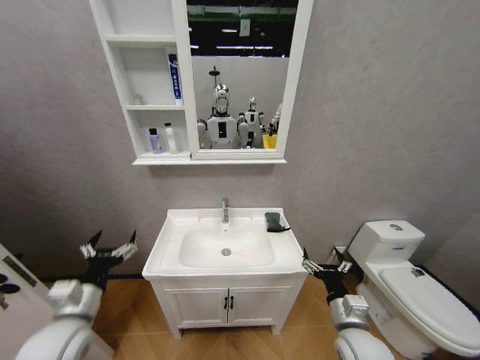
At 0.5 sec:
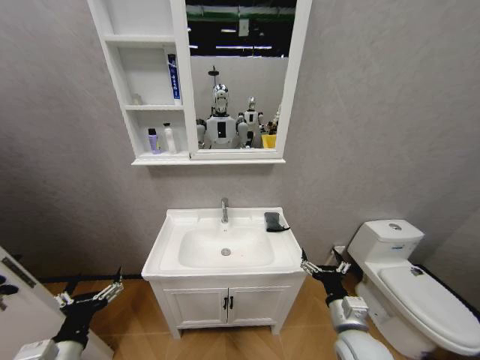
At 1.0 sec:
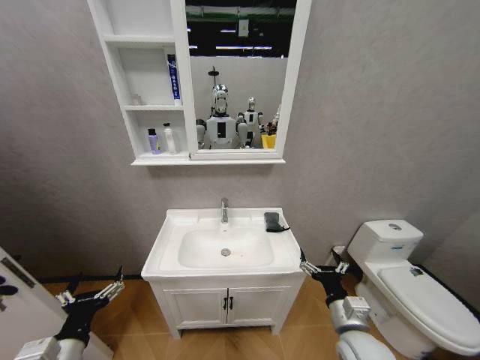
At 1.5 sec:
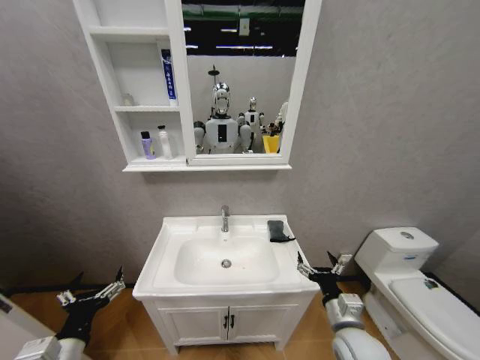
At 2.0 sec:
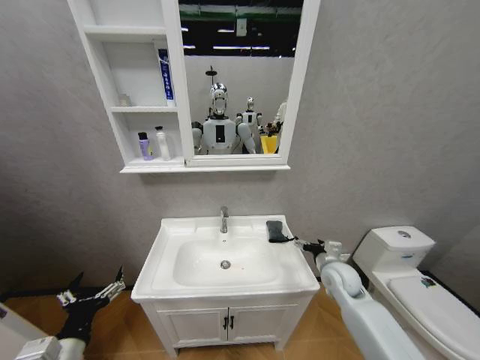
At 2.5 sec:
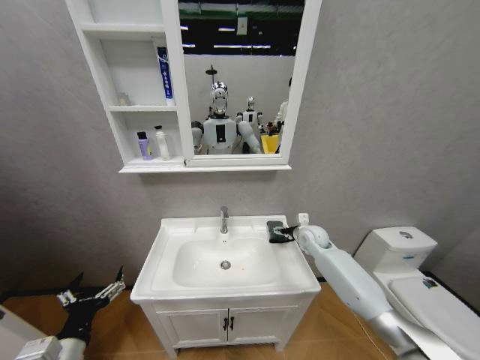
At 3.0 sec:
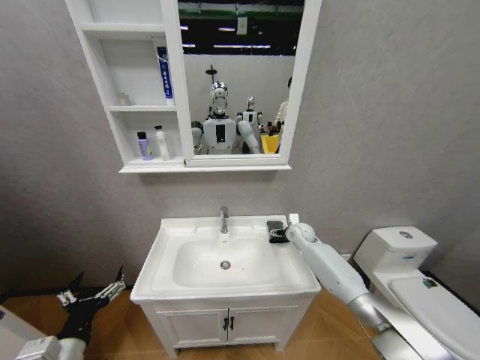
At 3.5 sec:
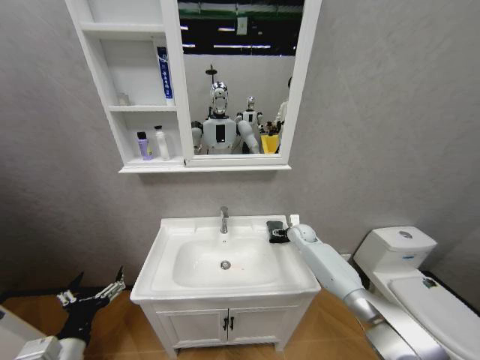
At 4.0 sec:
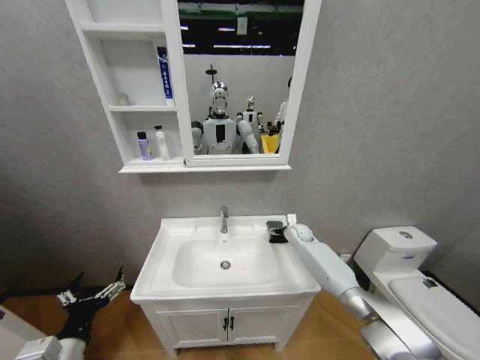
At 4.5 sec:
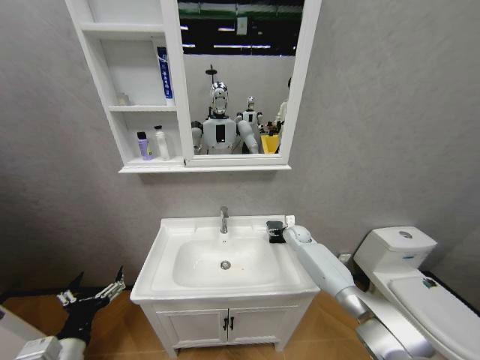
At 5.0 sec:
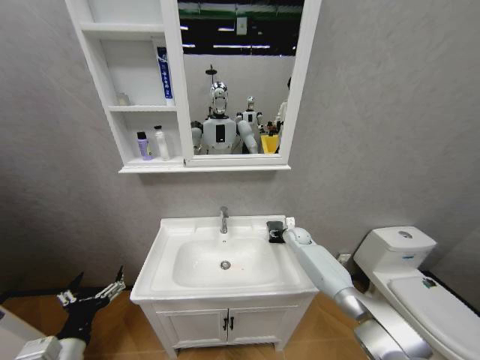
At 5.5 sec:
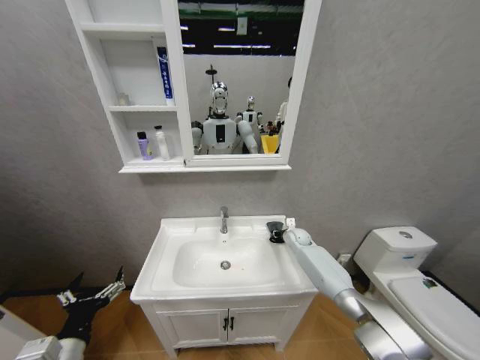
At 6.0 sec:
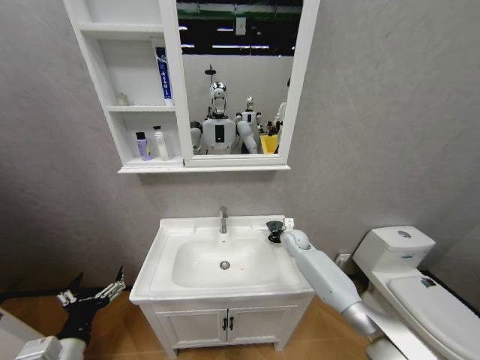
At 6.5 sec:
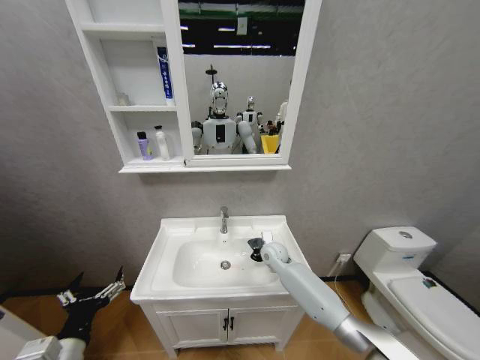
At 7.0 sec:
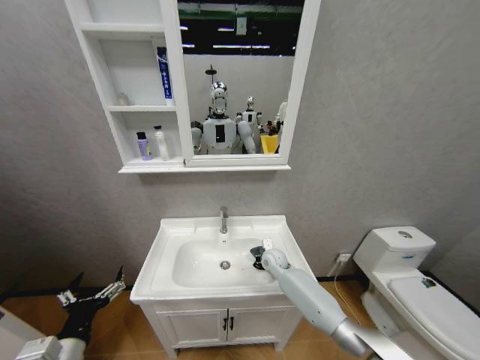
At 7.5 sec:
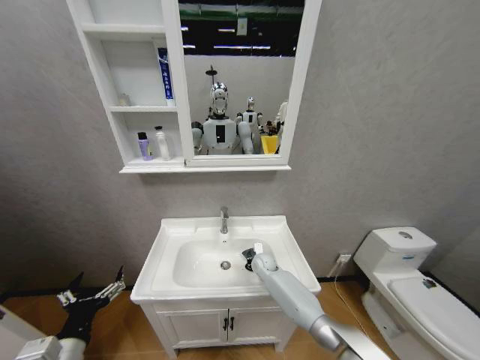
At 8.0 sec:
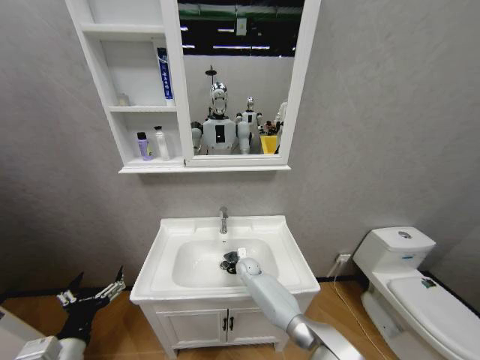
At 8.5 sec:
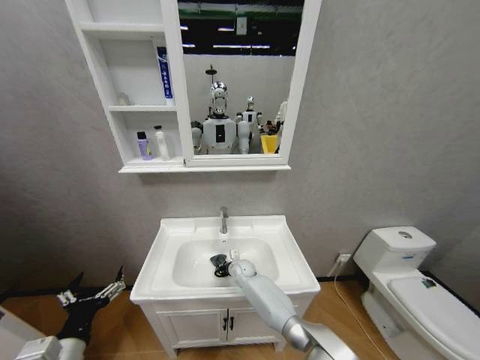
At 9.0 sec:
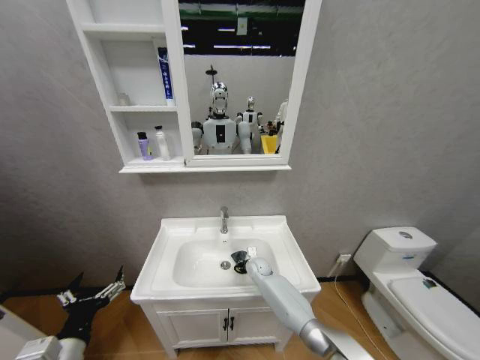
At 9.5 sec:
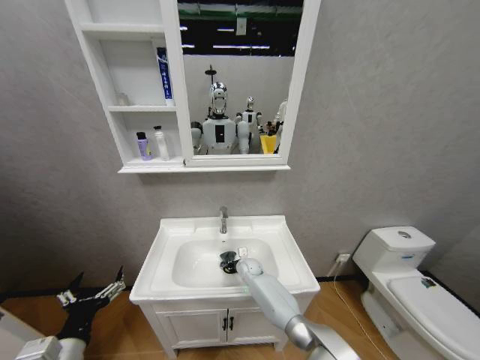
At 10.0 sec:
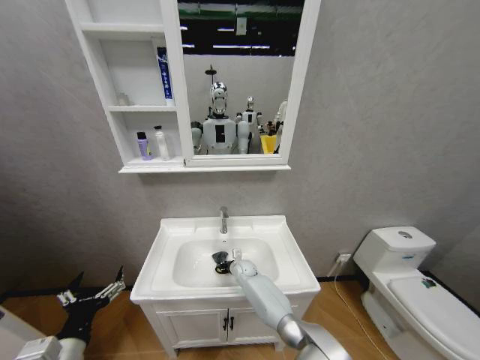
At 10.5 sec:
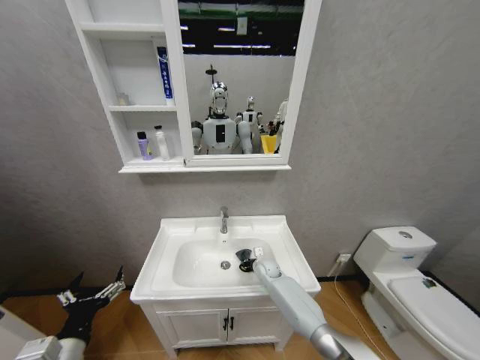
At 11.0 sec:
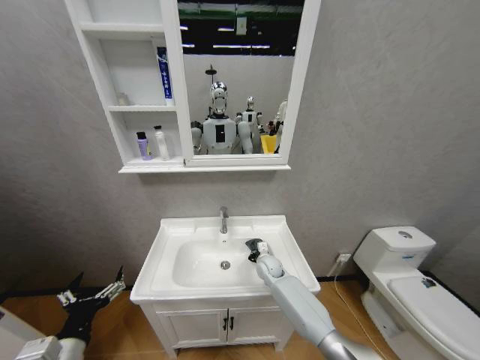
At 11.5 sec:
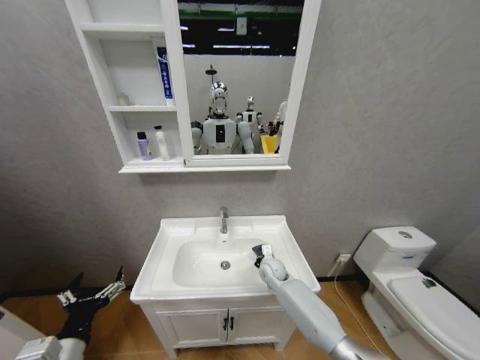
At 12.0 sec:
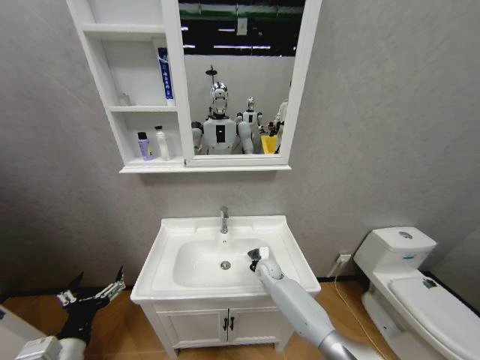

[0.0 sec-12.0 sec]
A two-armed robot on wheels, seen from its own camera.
Task of the whole recording: Move facial cleanser and shampoo from washbasin to cabinet, then wipe washbasin with towel.
0.0 sec to 2.0 sec: The left gripper shifts some 10 cm backward, while the right gripper goes about 15 cm forward.
2.0 sec to 4.0 sec: The right gripper heads forward, covering some 20 cm.
4.0 sec to 6.0 sec: The right gripper closes its fingers.
6.0 sec to 8.0 sec: The right gripper travels to the left and downward by roughly 25 cm.
8.0 sec to 10.0 sec: There are only small adjustments of the grippers.
10.0 sec to 12.0 sec: The right gripper goes approximately 10 cm to the right and upward.

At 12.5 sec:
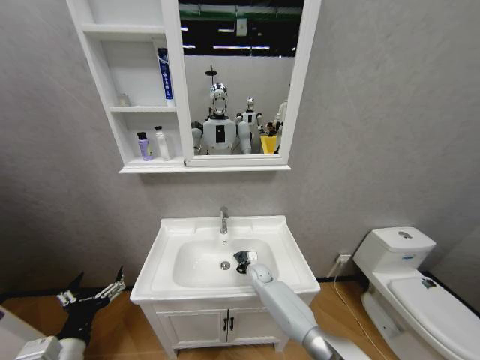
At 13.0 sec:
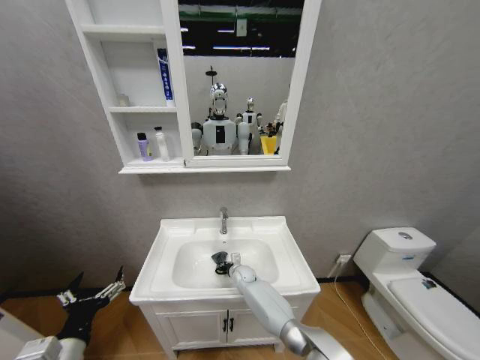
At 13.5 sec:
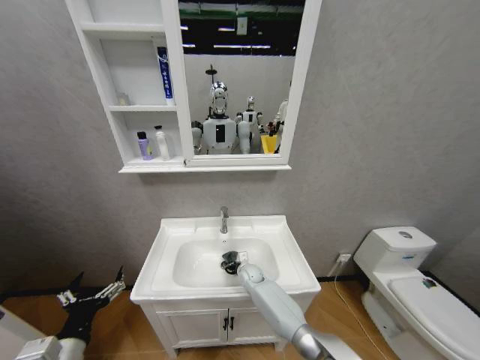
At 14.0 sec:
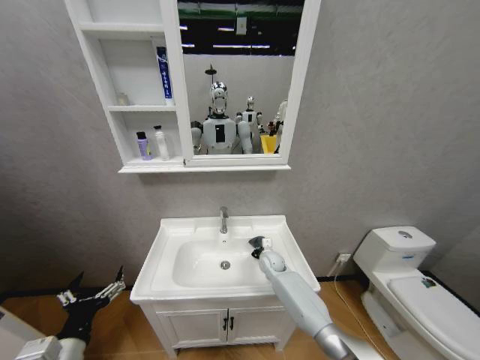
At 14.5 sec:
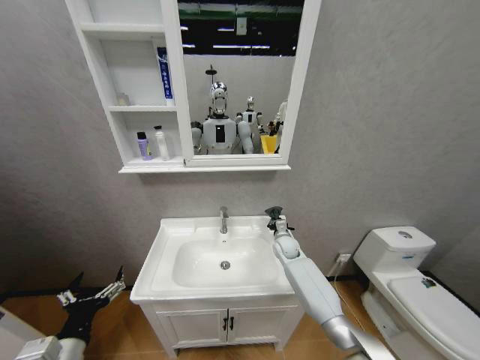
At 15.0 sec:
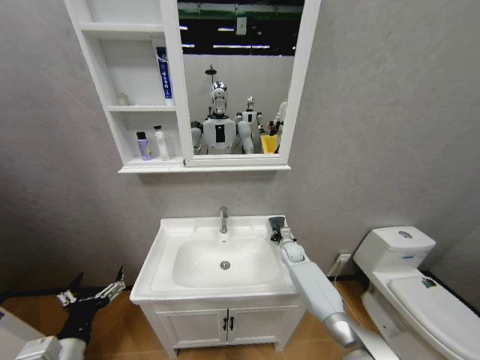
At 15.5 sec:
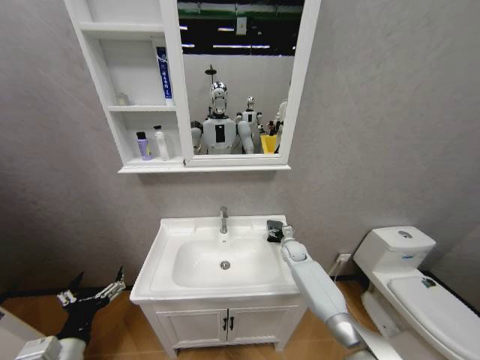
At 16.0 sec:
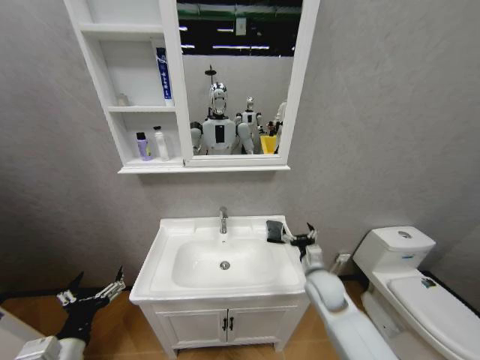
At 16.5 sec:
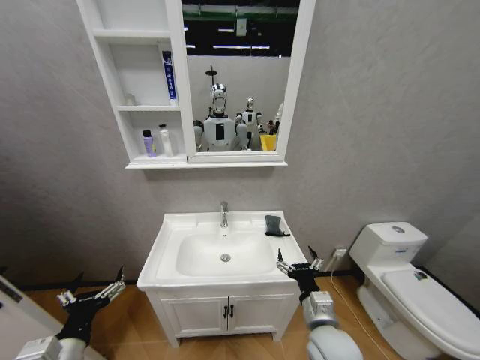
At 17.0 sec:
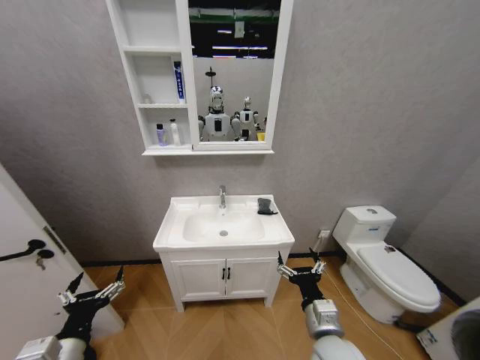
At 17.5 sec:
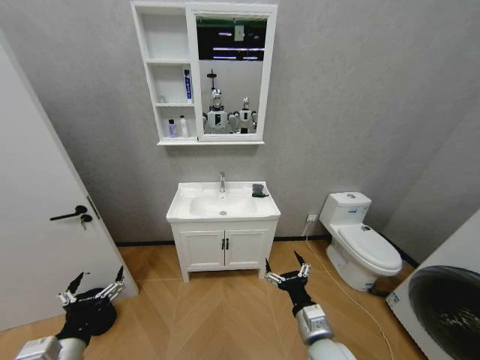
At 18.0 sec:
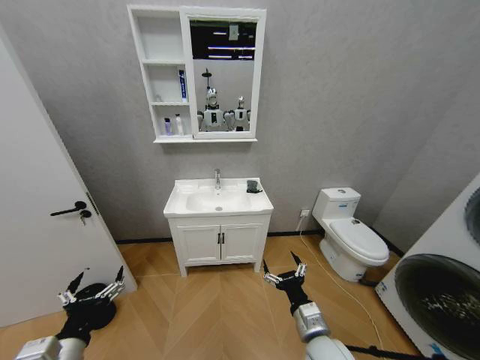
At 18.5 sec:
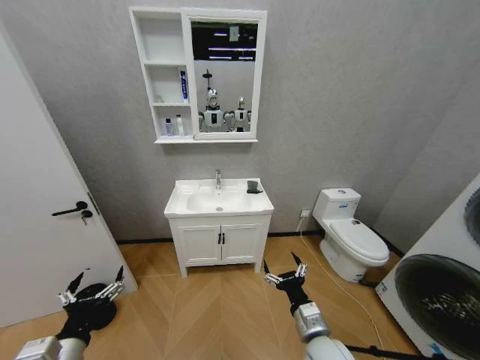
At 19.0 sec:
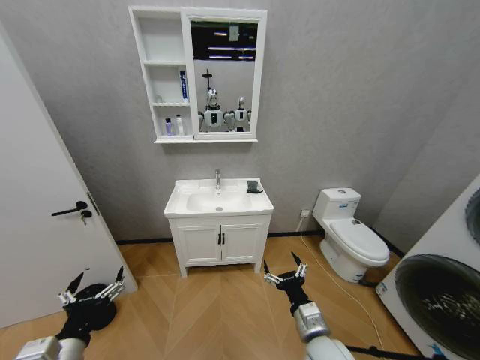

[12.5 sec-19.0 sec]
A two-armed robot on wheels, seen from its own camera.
Task of the whole recording: Move facial cleanser and shampoo from washbasin to cabinet, then wipe washbasin with towel.
12.5 sec to 14.5 sec: The right gripper moves upward and to the right, roughly 15 cm.
14.5 sec to 17.0 sec: The right gripper heads backward, covering about 35 cm, and opens its fingers.

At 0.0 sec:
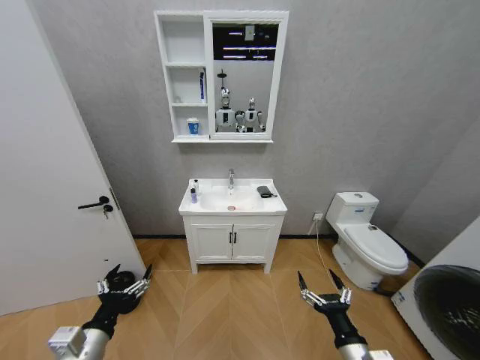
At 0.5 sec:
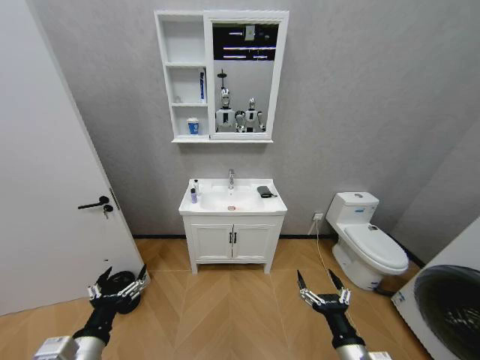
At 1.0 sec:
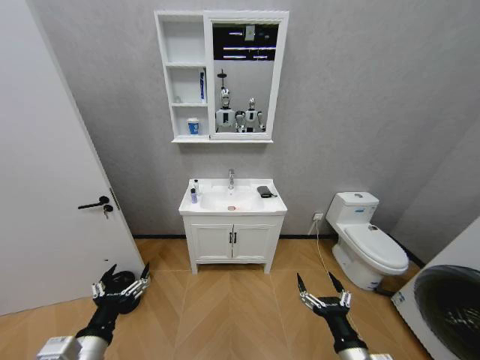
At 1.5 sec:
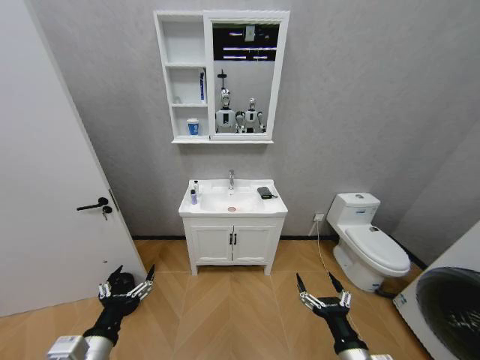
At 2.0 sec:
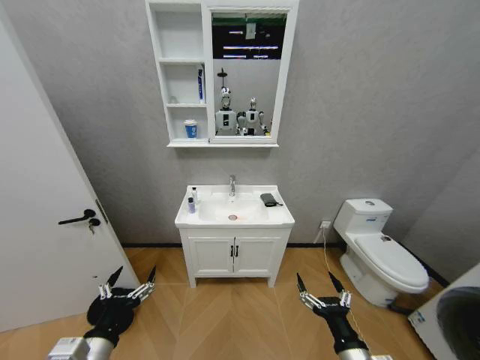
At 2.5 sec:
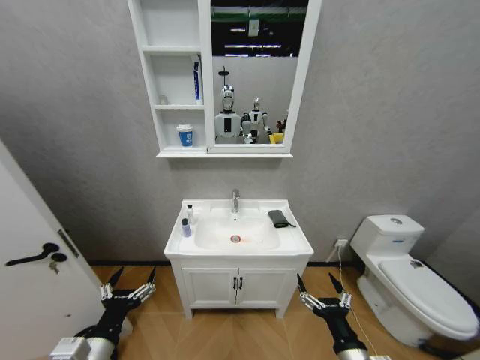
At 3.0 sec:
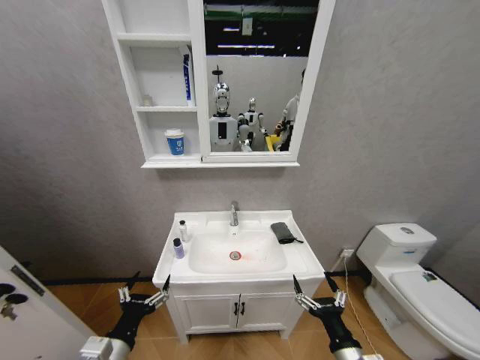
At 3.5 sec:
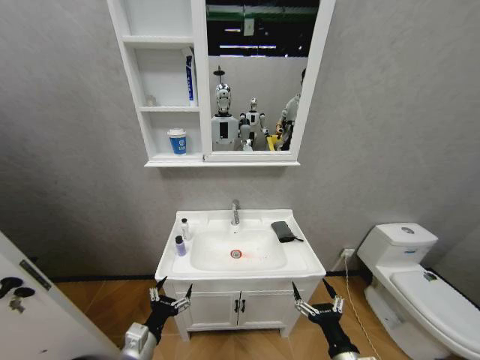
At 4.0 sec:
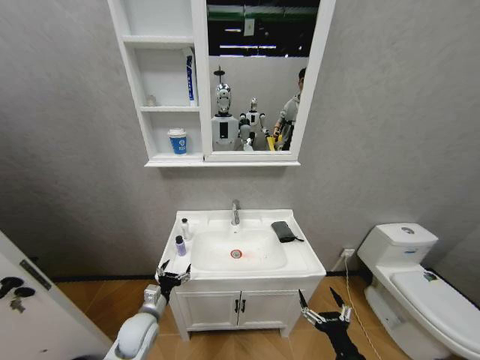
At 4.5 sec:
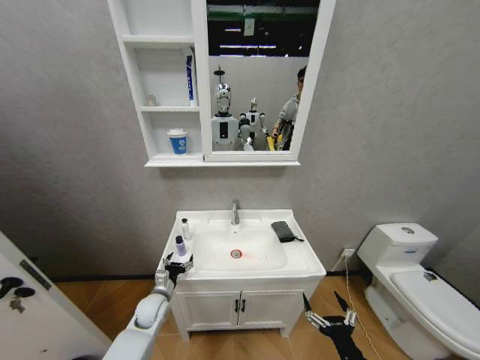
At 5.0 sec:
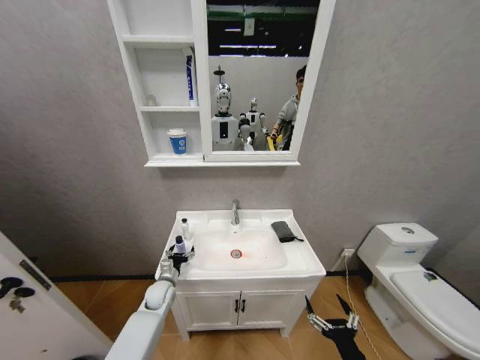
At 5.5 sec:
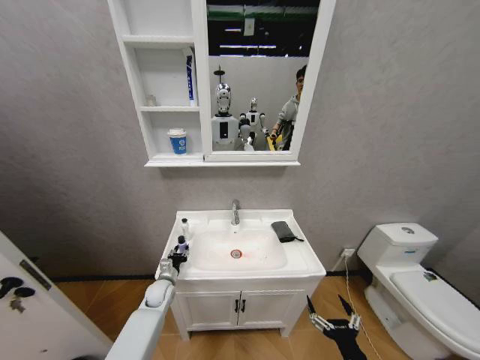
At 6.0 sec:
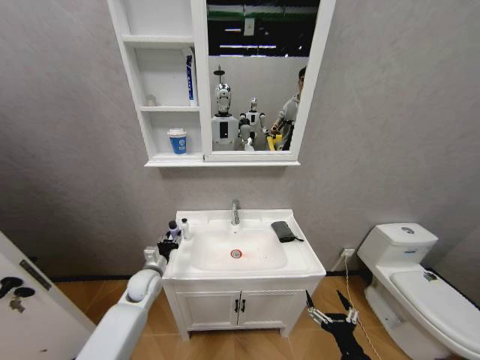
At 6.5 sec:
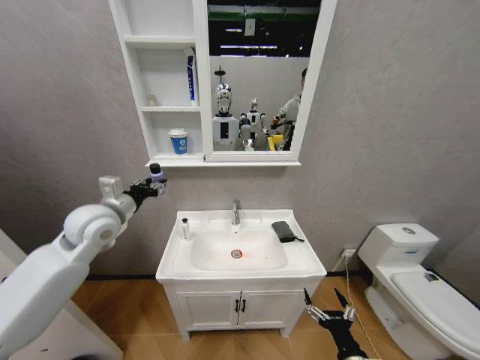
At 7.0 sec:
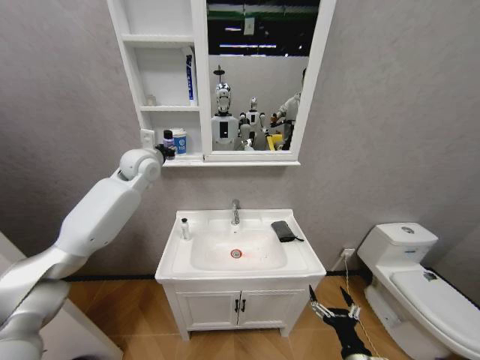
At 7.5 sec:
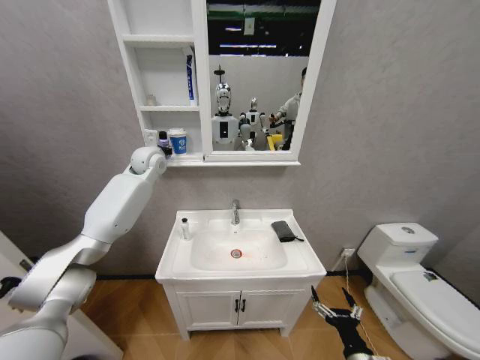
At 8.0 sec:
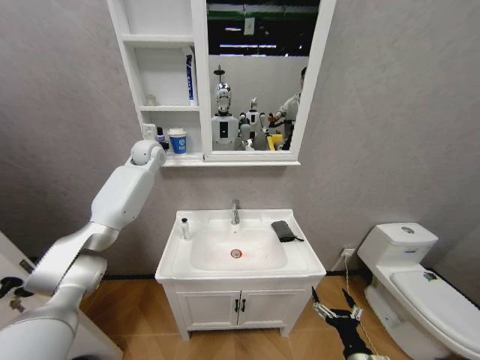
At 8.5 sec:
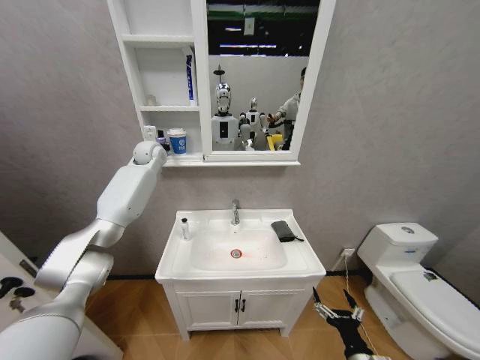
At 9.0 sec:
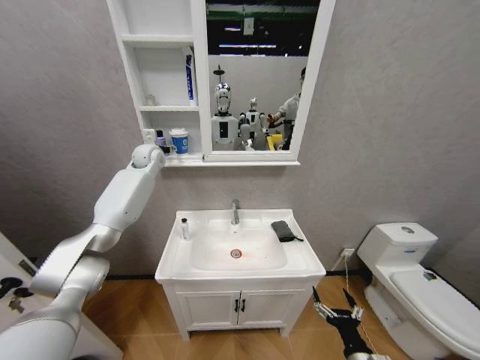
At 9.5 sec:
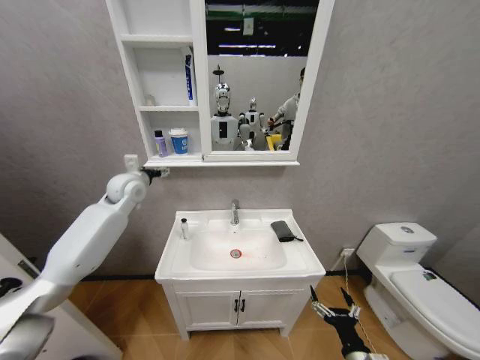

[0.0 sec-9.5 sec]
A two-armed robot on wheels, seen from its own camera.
Task of the whole recording: Move facial cleanser and shampoo from washbasin to cabinet, then wipe washbasin with towel.
2.0 sec to 4.0 sec: The right gripper ends up roughly 5 cm from where it was. The left gripper heads forward and downward, covering approximately 20 cm.
4.0 sec to 5.5 sec: The left gripper is displaced forward and downward by approximately 15 cm, and closes up.
5.5 sec to 7.5 sec: The left gripper is displaced upward and forward by some 50 cm.
7.5 sec to 9.5 sec: The left gripper moves backward, downward and to the left, about 10 cm, and opens.
